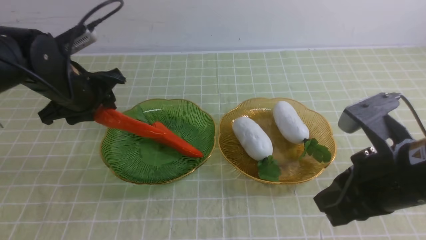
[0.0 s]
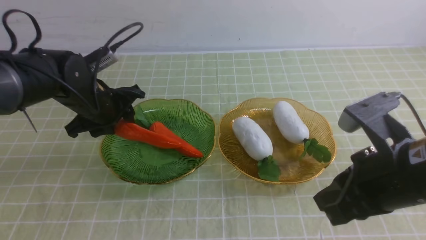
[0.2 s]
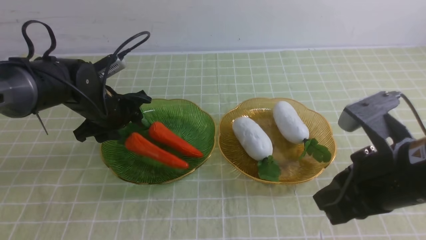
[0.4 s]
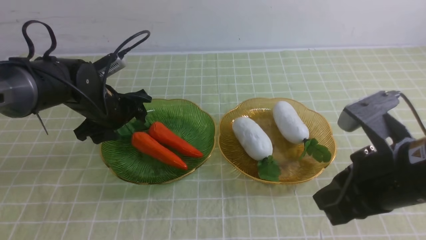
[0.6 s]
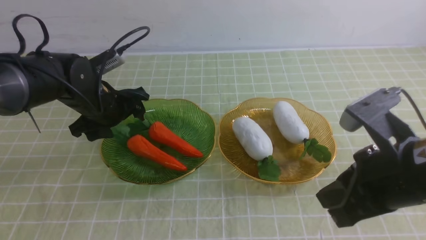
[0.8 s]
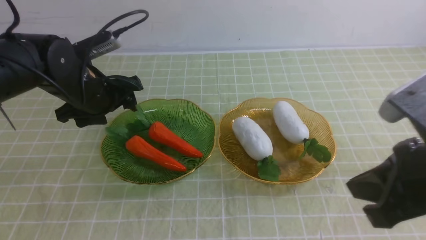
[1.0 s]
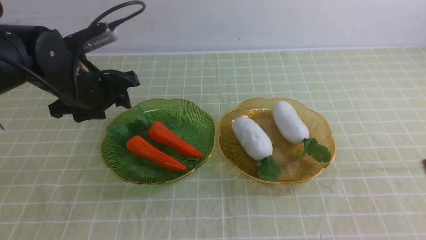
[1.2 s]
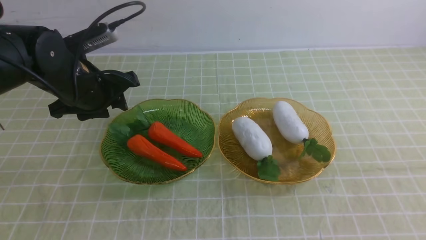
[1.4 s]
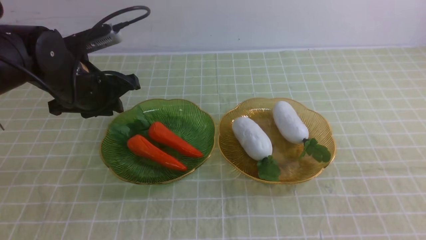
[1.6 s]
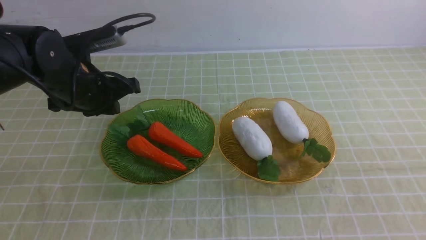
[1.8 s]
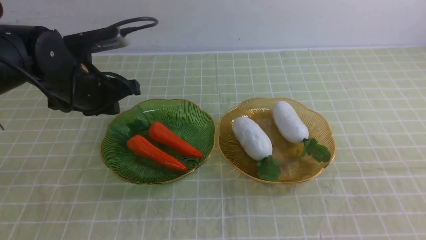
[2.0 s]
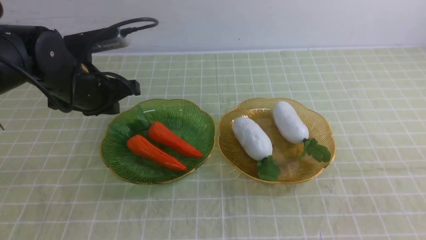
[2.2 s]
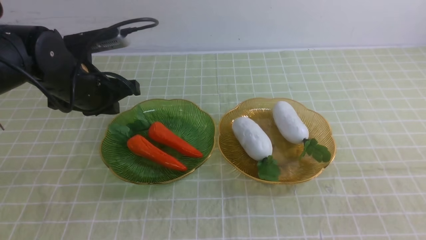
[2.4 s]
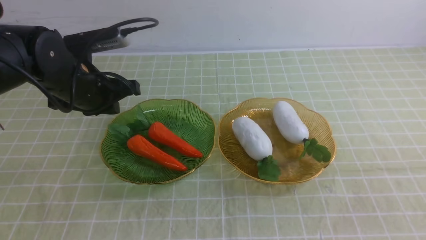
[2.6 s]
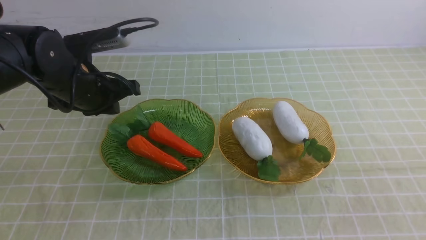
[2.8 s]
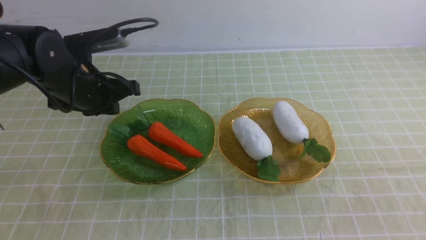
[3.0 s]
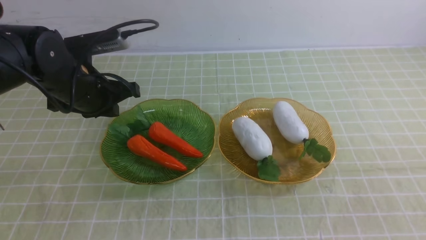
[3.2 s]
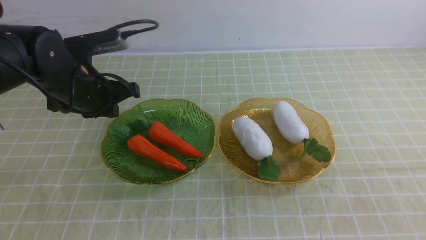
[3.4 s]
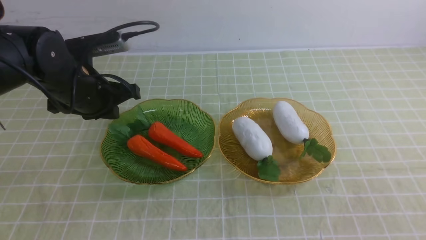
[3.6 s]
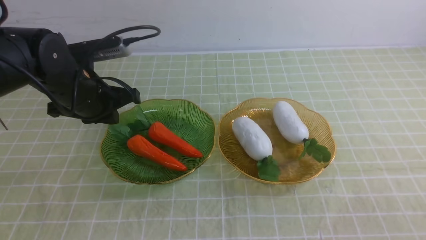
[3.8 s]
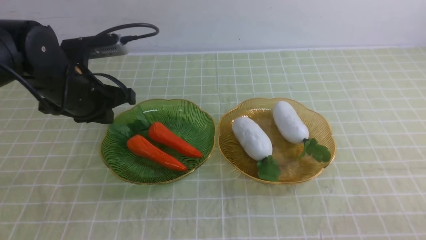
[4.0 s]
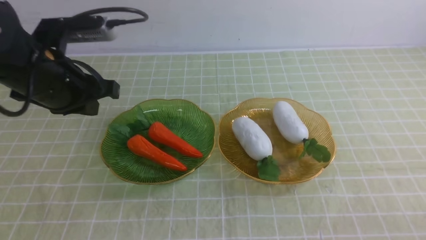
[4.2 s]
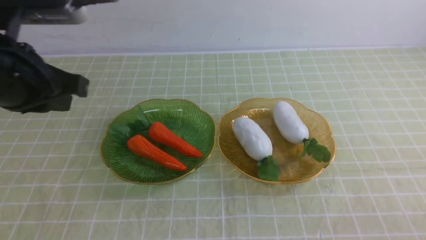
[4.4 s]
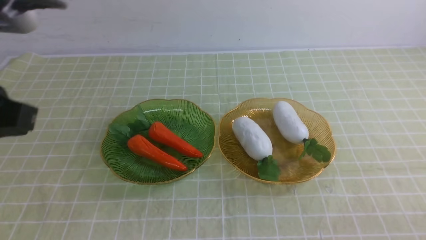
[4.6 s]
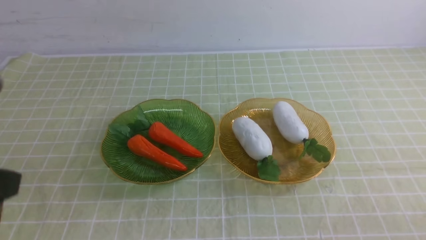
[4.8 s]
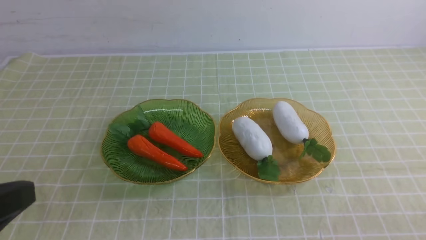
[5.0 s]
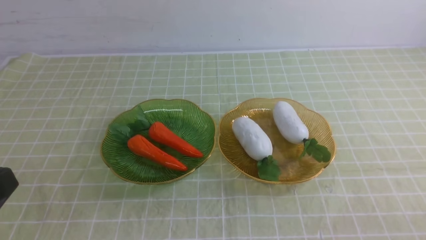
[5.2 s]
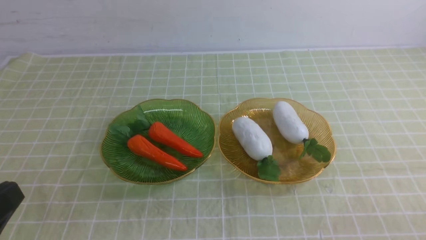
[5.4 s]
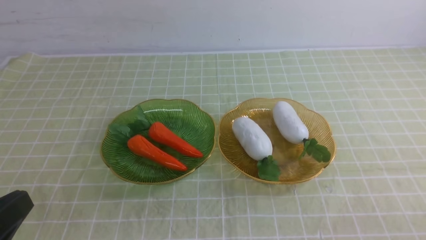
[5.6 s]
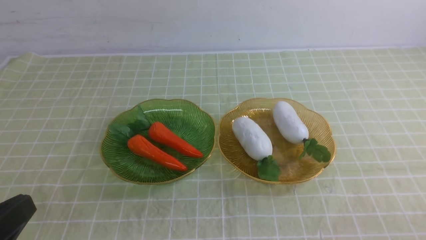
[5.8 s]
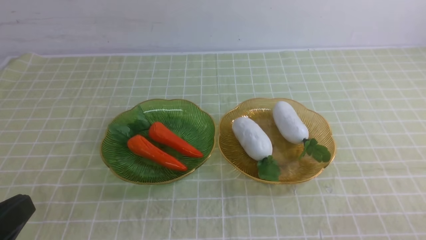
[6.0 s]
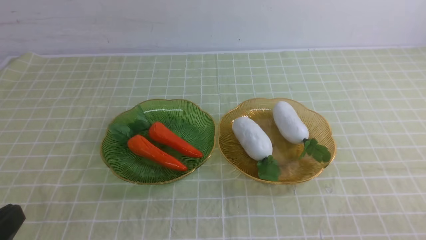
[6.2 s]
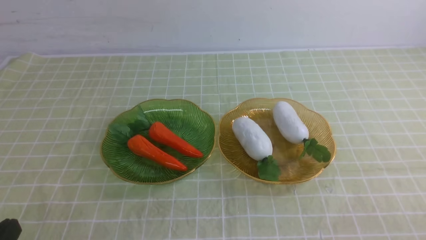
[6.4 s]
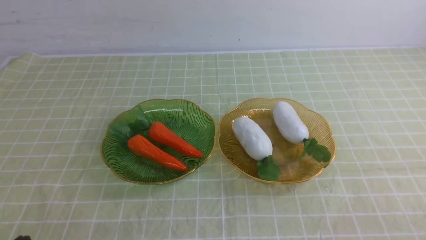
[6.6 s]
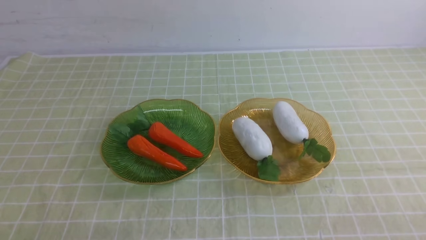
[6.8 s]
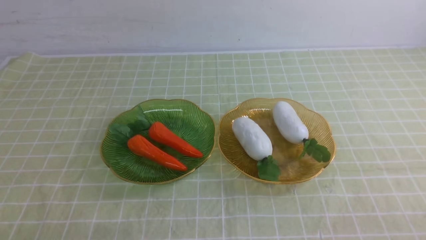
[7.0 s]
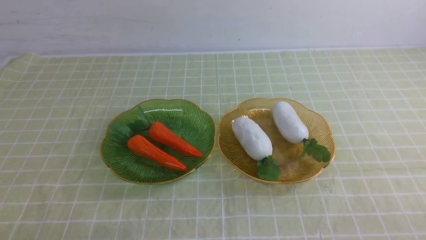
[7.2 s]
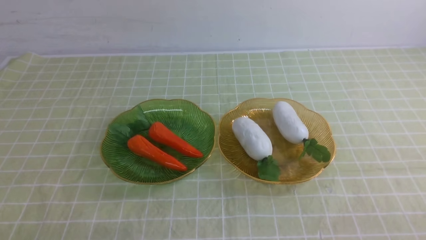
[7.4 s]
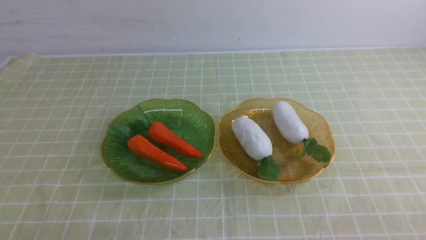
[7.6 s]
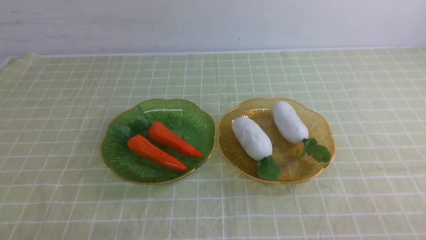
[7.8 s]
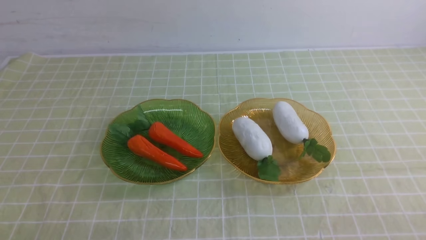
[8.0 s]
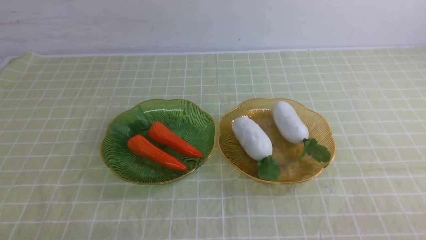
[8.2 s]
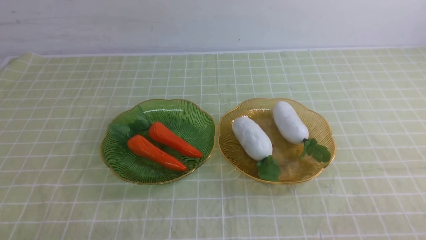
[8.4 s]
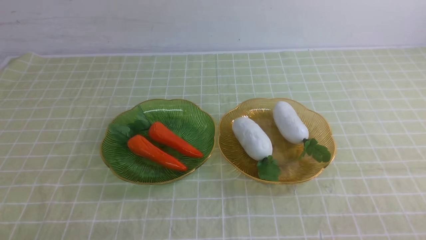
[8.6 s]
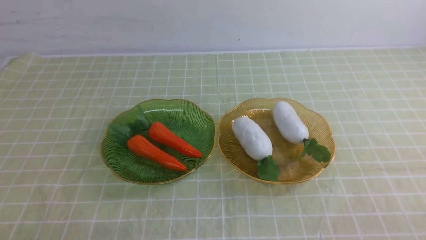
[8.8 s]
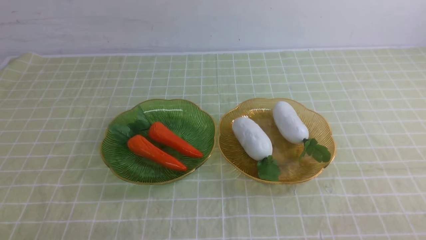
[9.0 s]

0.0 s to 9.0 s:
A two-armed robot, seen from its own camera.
0.0 to 1.6 s: The right gripper moves backward, to the right and upward, about 20 cm, while the left gripper closes its fingers.
1.6 to 3.0 s: The grippers make only small movements.
3.0 to 4.4 s: The left gripper travels backward and upward by approximately 15 cm.
4.4 to 6.0 s: The left gripper shifts about 20 cm backward and downward.
6.0 to 7.6 s: The left gripper moves downward, approximately 10 cm.
7.6 to 9.0 s: Both grippers stay about where they are.

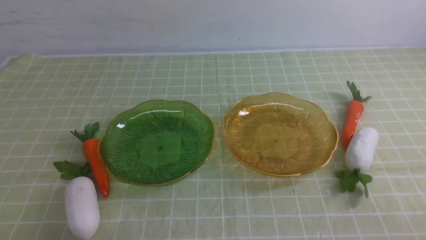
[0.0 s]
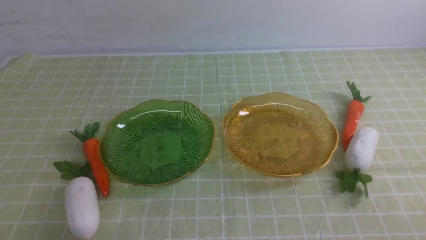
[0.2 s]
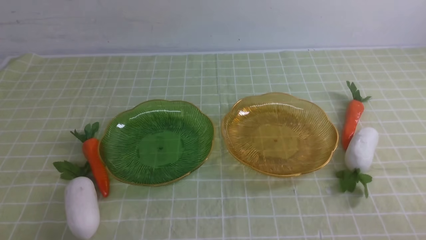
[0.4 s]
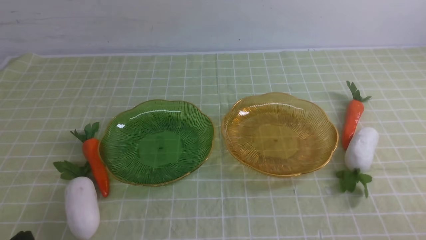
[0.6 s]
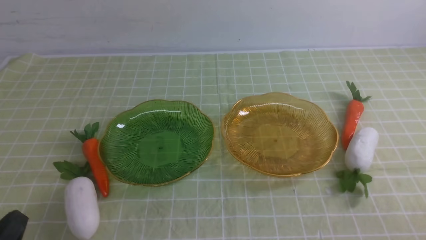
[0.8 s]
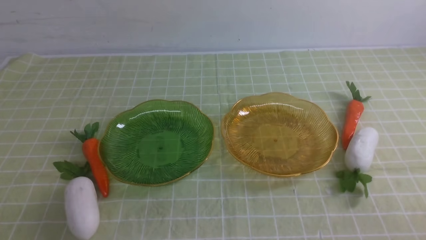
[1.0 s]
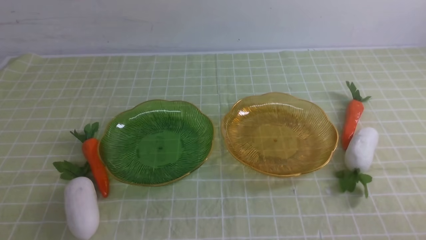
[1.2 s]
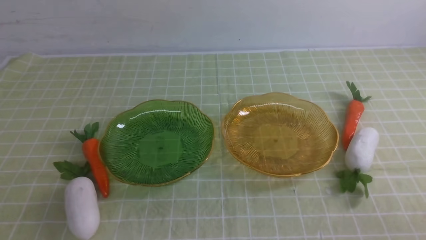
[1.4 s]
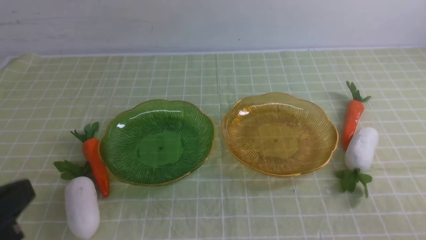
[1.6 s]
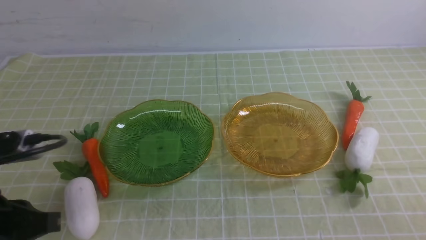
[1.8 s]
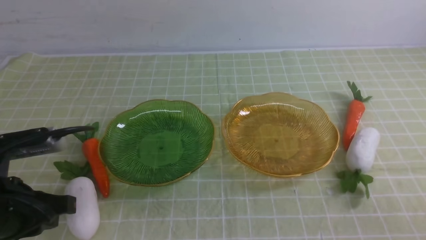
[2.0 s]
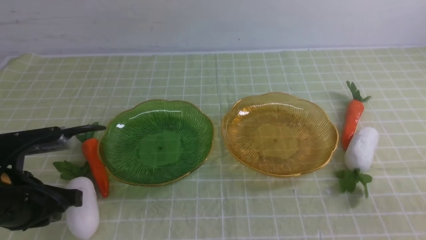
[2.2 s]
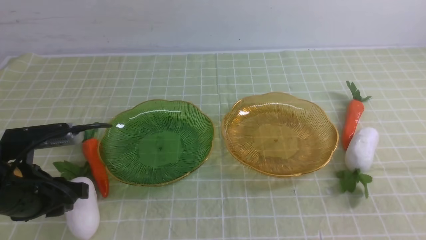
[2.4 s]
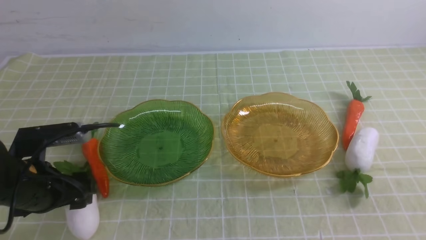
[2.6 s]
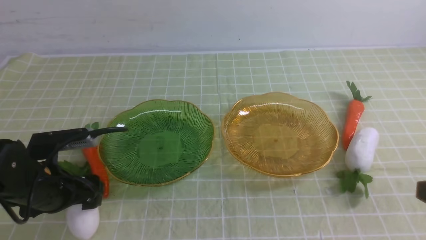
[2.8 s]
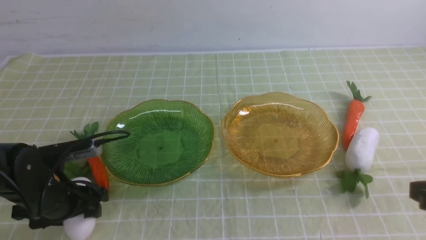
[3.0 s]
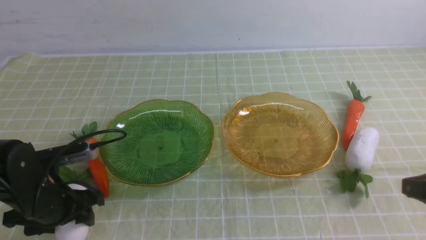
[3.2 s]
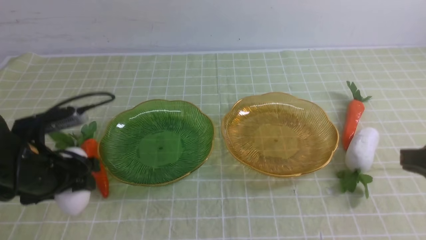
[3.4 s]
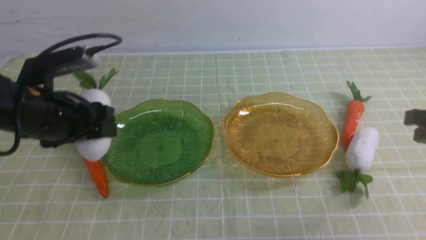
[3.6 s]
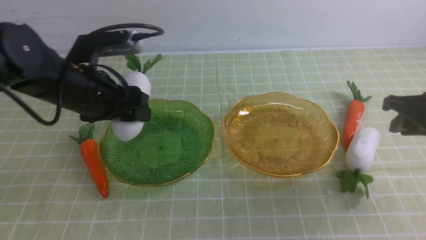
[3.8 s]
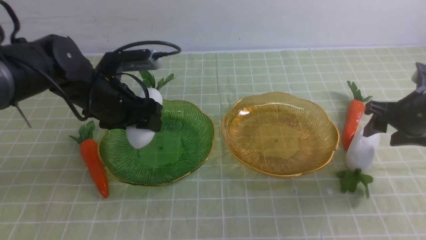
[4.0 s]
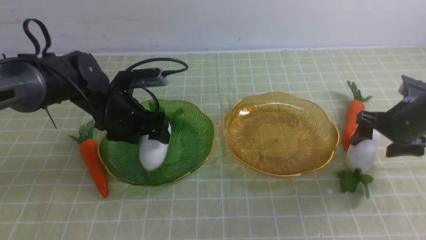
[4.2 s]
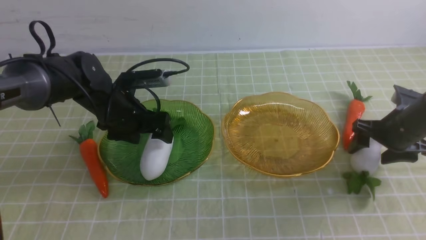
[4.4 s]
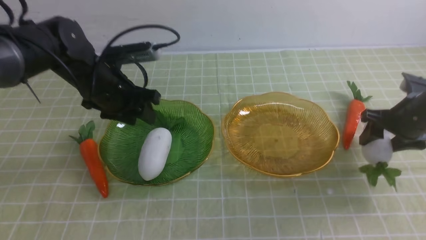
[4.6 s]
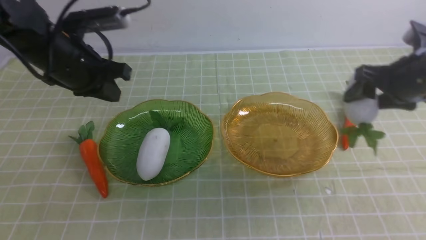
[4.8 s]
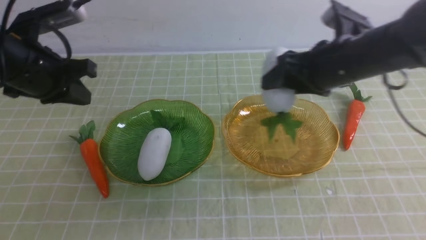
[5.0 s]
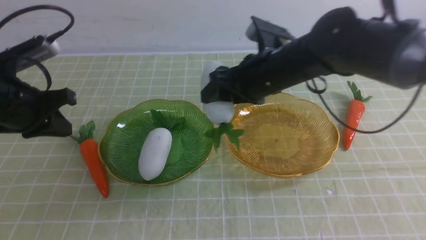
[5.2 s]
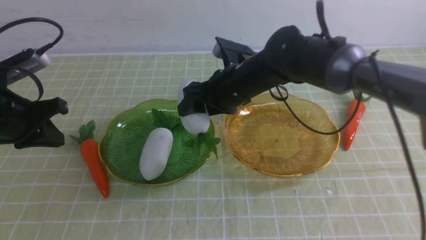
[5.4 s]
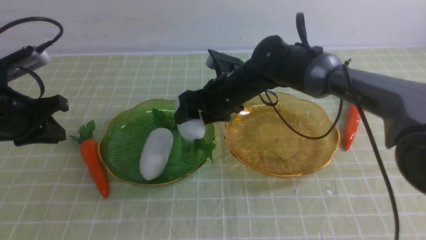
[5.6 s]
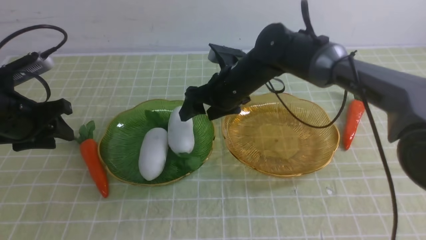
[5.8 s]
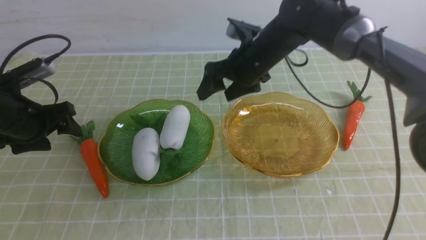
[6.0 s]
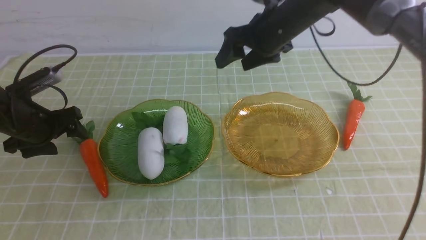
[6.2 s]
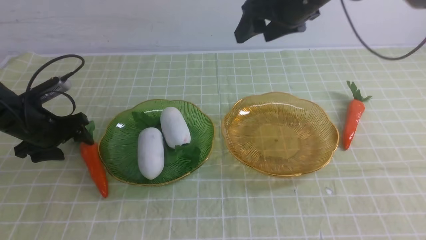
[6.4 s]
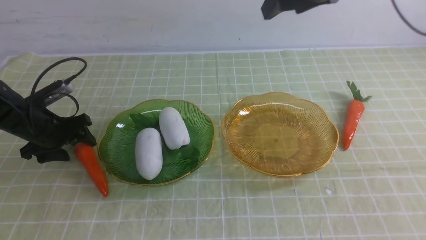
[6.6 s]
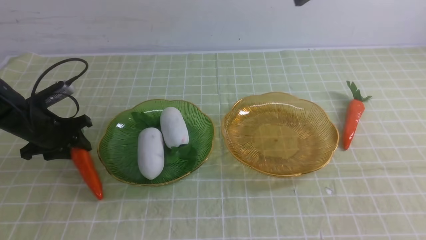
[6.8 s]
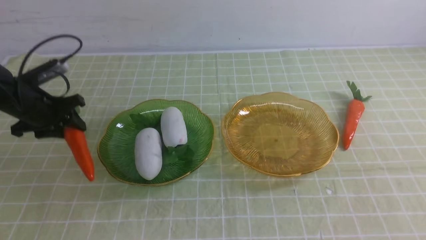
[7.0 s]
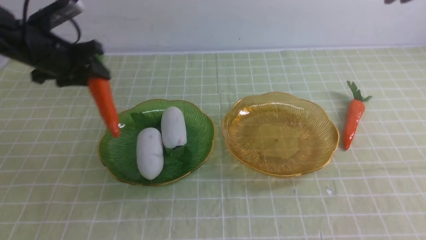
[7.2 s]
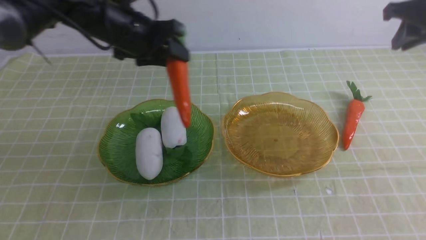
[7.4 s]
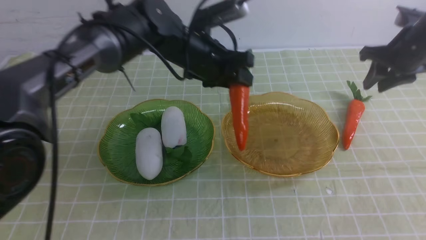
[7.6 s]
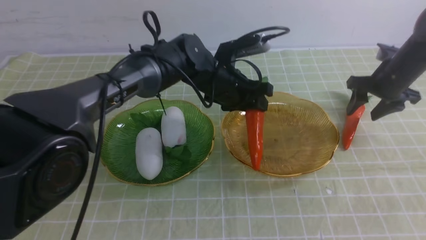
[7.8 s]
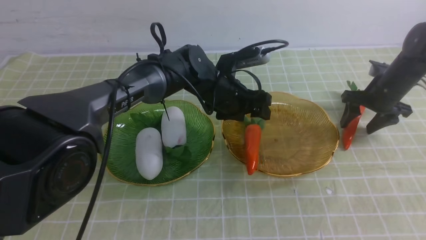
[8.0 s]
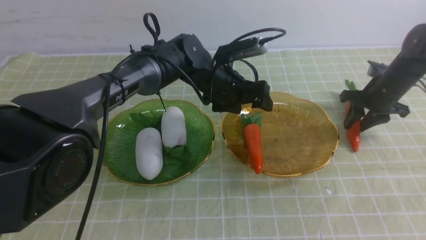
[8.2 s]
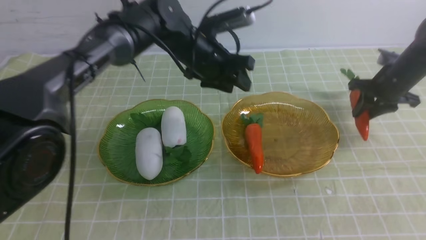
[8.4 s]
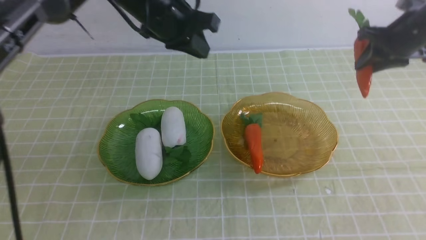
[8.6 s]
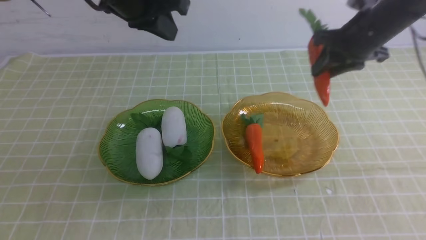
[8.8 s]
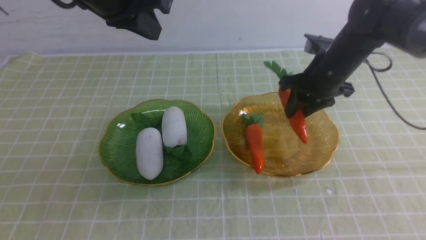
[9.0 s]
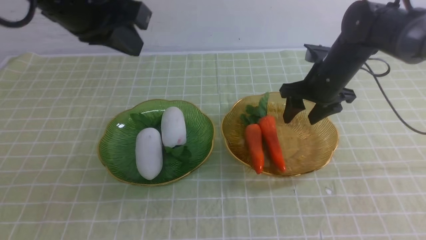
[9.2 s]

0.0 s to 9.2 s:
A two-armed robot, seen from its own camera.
Step, 0.0 to 4.8 s: use the left arm to grab a radish and put it into the left plate.
Step, 5.0 to 6.2 s: use the right arm to grab a radish and put it into the left plate.
Step, 6.4 to 8.8 s: use the left arm to grab a carrot and put it into the right plate.
0.0 to 1.6 s: The left gripper moves upward, approximately 15 cm.
1.6 to 3.0 s: The right gripper moves forward and upward, approximately 10 cm. Meanwhile the left gripper moves forward and downward, roughly 20 cm, and opens its fingers.
3.0 to 4.6 s: The left gripper heads forward, upward and to the right, covering about 15 cm, and closes; the right gripper moves forward, approximately 20 cm, and opens up.
4.6 to 6.2 s: The left gripper heads to the left and downward, covering approximately 15 cm, and opens; the right gripper shifts some 20 cm to the left and upward.
6.2 to 7.6 s: The grippers both shift to the right by about 25 cm. The left gripper closes up; the right gripper closes its fingers.
7.6 to 9.2 s: The left gripper goes approximately 25 cm upward, backward and to the left, and closes up; the right gripper is displaced to the left by about 15 cm.
